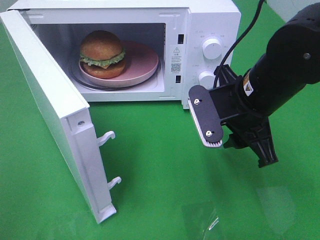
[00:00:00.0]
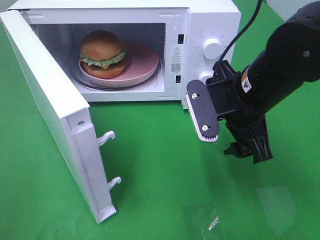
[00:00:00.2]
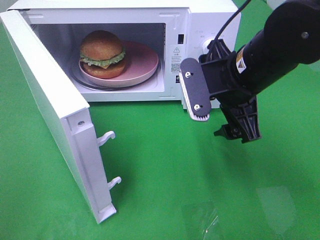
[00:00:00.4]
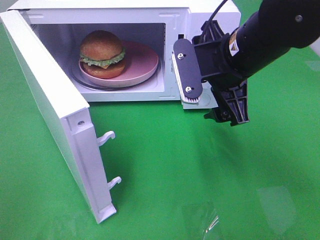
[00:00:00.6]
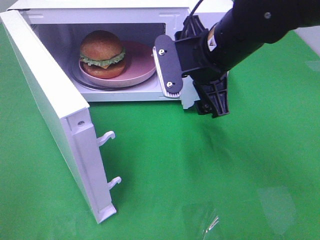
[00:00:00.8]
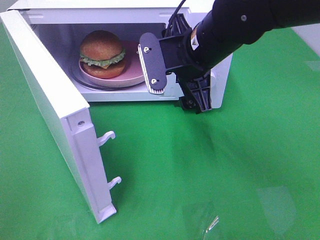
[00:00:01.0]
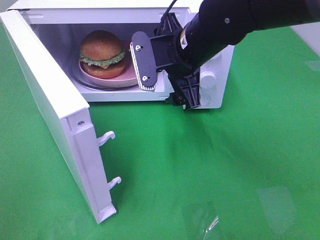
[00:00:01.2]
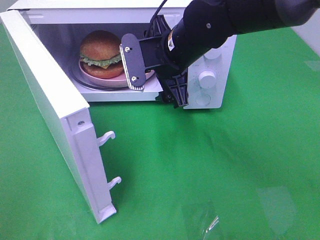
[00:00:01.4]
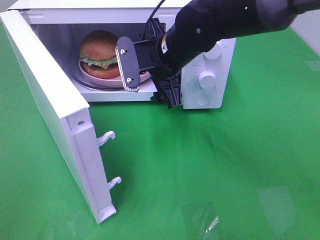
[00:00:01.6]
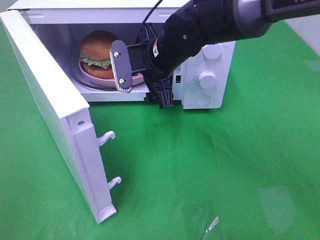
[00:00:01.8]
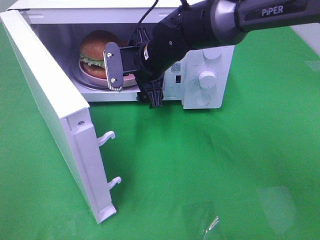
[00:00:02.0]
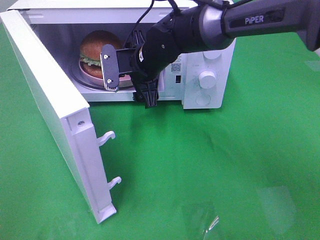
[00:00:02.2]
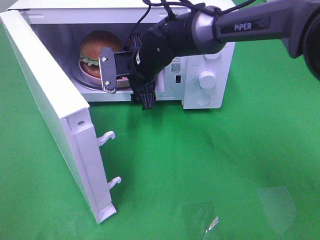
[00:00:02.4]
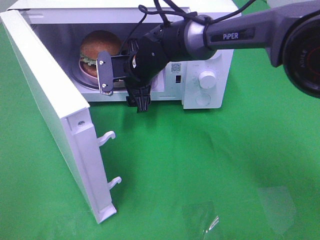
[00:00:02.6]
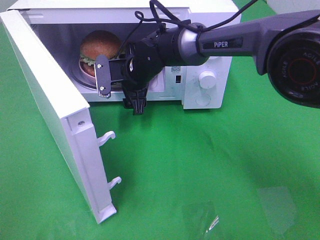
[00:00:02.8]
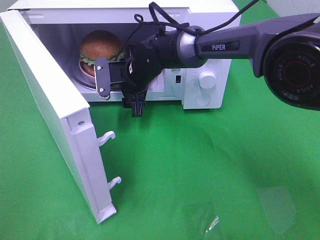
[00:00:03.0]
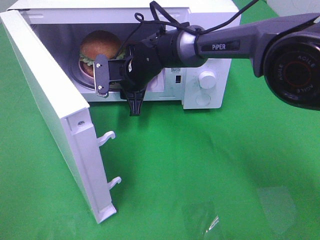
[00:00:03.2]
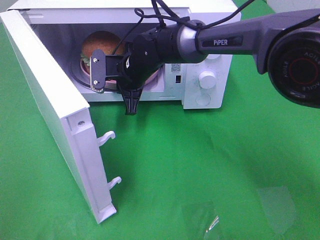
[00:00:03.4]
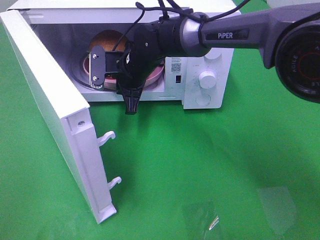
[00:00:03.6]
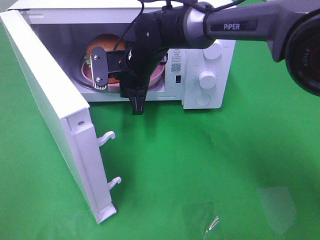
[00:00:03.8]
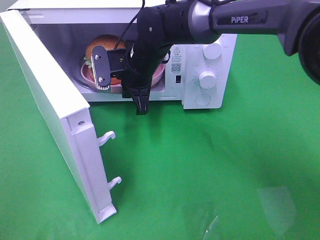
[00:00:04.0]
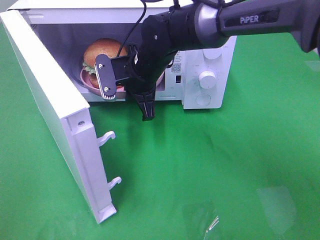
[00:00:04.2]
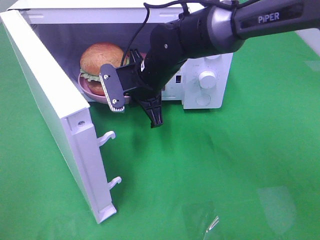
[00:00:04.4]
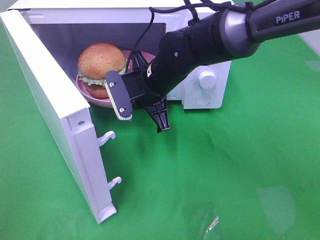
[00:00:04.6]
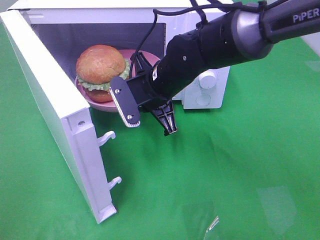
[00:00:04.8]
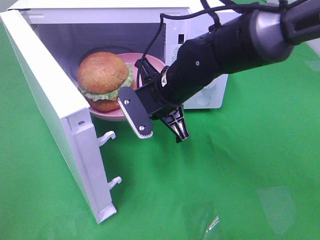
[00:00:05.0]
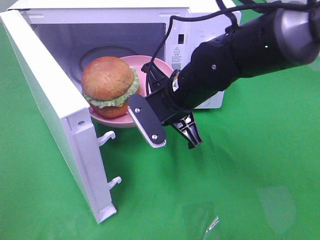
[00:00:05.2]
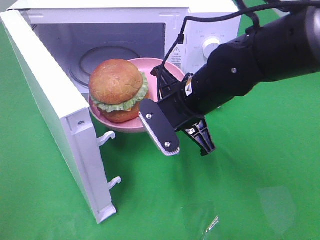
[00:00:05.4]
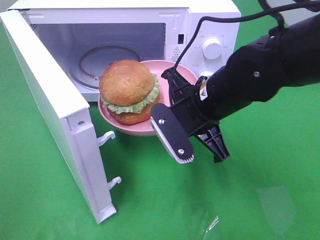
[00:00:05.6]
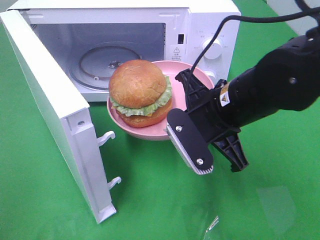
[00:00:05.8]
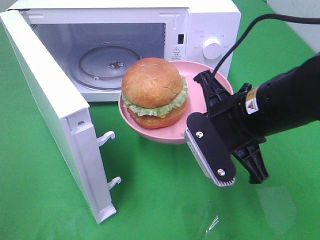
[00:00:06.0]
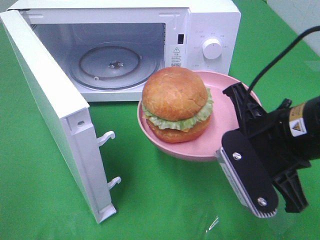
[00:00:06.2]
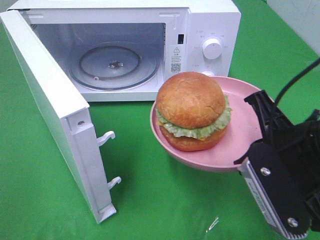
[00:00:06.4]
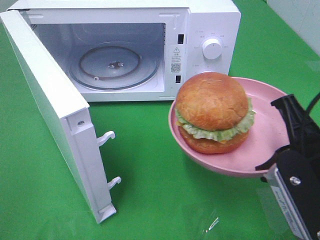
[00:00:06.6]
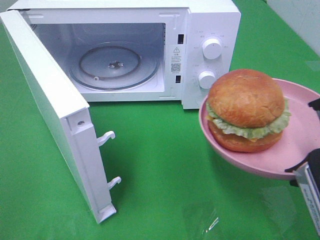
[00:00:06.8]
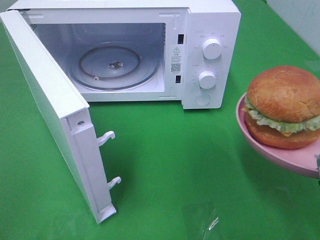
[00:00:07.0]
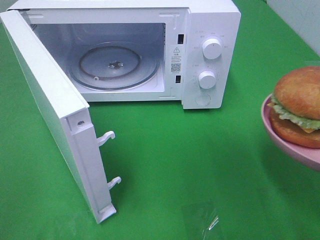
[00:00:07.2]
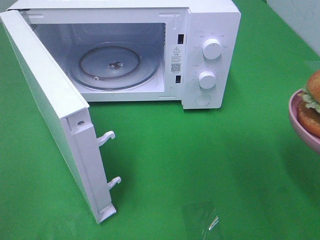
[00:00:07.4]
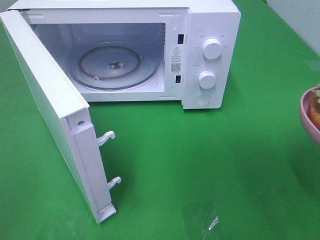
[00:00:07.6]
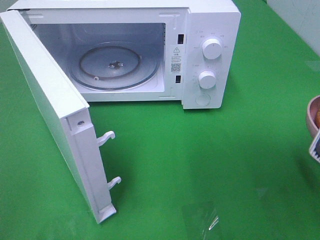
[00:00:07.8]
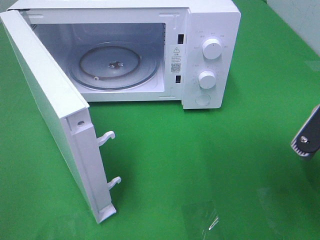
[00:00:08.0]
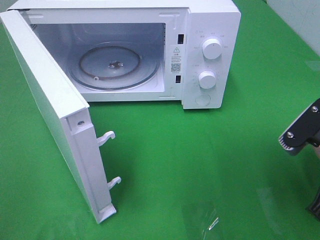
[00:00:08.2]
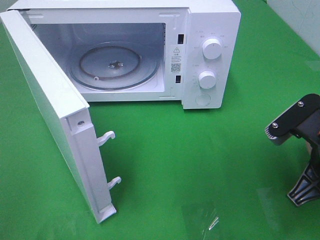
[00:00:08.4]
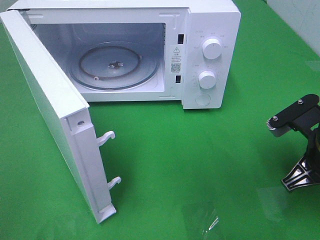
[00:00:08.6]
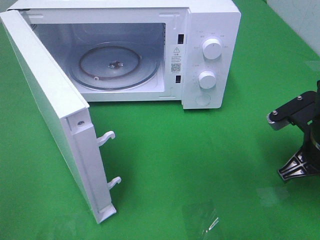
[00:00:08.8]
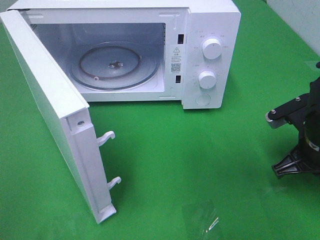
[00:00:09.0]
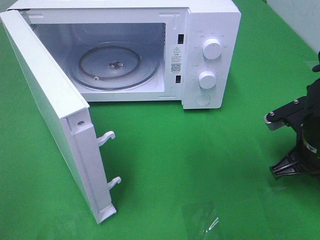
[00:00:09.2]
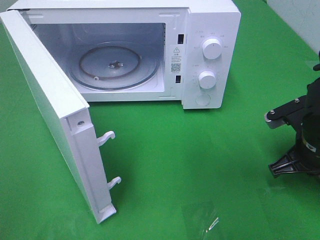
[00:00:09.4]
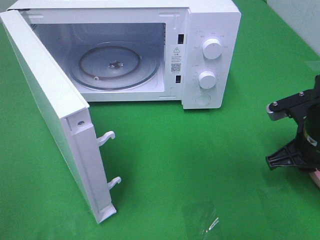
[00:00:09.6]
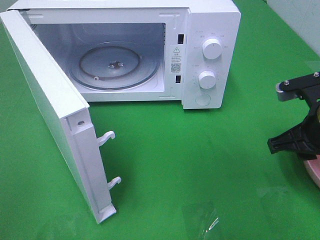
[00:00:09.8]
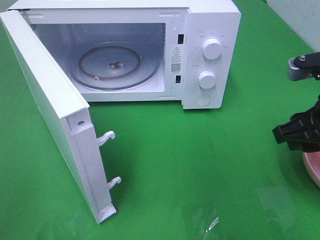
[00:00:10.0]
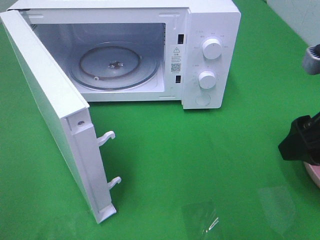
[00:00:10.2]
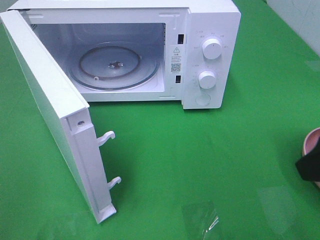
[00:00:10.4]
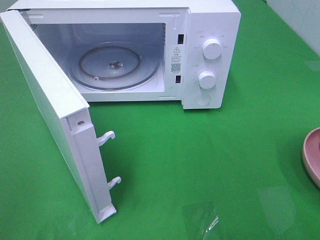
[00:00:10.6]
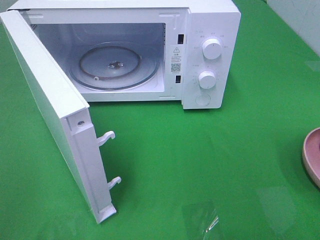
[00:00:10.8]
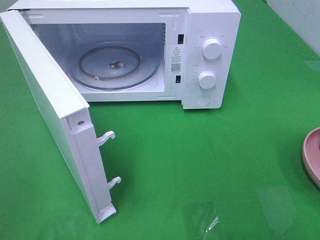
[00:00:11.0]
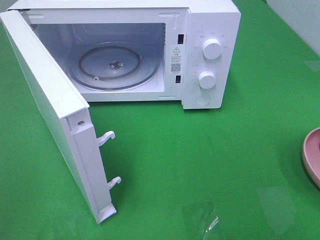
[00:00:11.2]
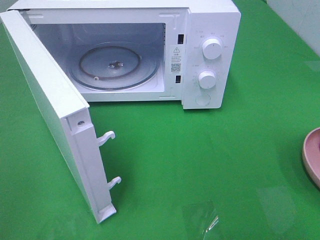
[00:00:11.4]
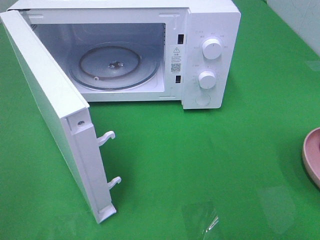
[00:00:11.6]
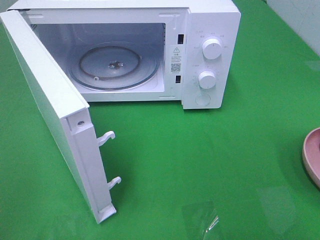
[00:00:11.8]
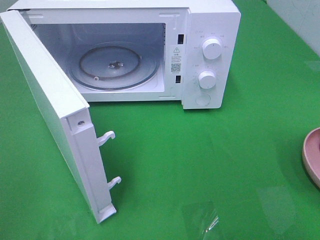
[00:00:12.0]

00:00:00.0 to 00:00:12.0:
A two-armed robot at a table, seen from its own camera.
Task of the whole recording: Heat the burger.
Step, 00:00:00.0 to 00:00:03.4: Right hand: grab the plate with the hamburger.
Step, 00:00:03.6 to 00:00:09.4: Right hand: place the plate on the table.
00:00:00.0 to 00:00:01.6: The right gripper moves to the left and forward, approximately 15 cm, and opens its fingers.
00:00:01.6 to 00:00:03.0: The right gripper is displaced downward, forward and to the left by about 10 cm.
00:00:03.0 to 00:00:04.4: The right gripper travels backward by roughly 5 cm, and closes up.
00:00:04.4 to 00:00:06.0: The right gripper shifts about 20 cm backward and to the right.
00:00:06.0 to 00:00:07.6: The right gripper shifts roughly 15 cm to the right and backward.
00:00:07.6 to 00:00:09.0: The right gripper travels forward and downward by about 15 cm.
00:00:09.0 to 00:00:10.4: The right gripper is displaced upward and backward by roughly 20 cm, and opens.
00:00:10.4 to 00:00:12.0: The right gripper travels backward by approximately 15 cm.

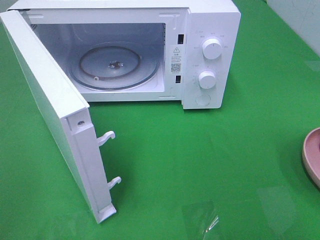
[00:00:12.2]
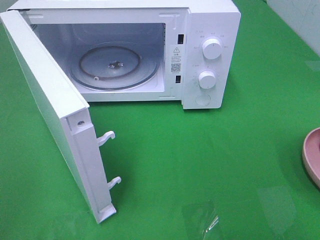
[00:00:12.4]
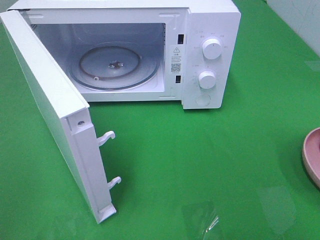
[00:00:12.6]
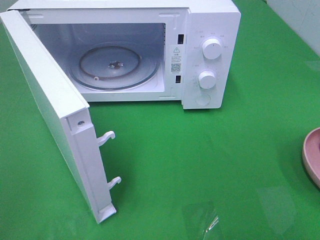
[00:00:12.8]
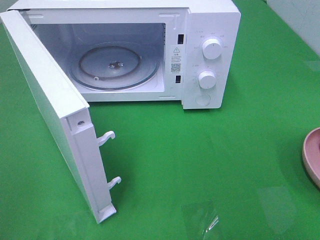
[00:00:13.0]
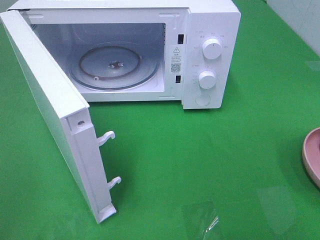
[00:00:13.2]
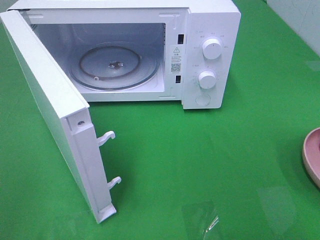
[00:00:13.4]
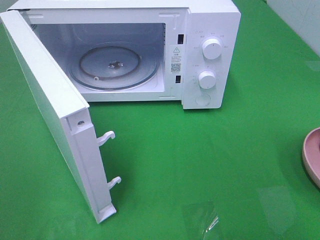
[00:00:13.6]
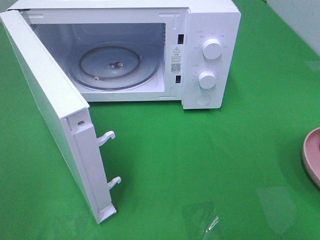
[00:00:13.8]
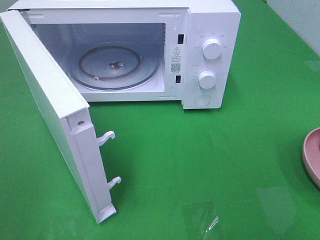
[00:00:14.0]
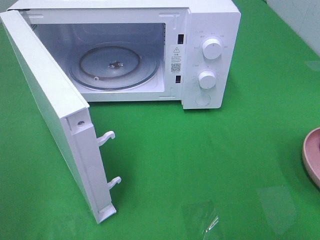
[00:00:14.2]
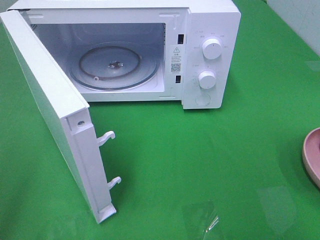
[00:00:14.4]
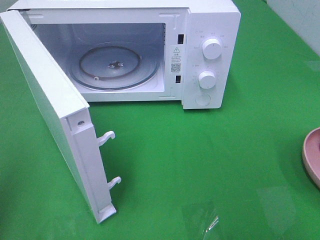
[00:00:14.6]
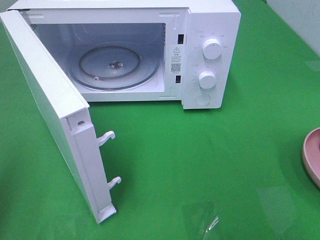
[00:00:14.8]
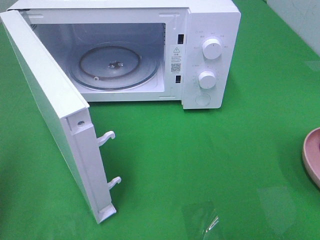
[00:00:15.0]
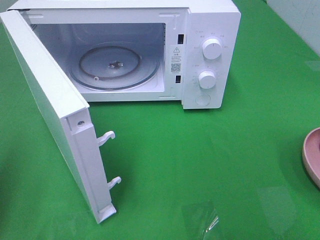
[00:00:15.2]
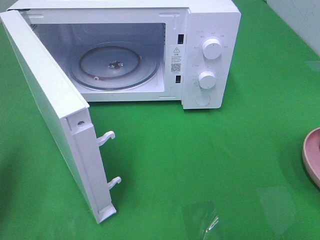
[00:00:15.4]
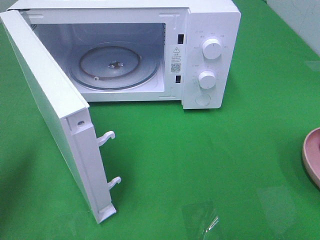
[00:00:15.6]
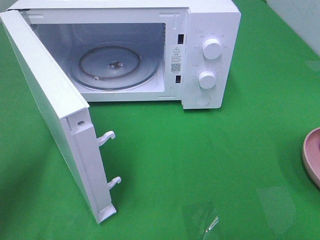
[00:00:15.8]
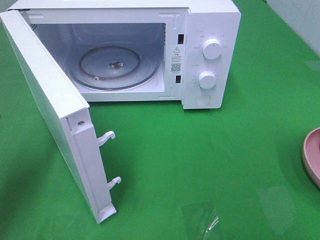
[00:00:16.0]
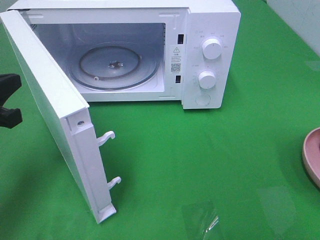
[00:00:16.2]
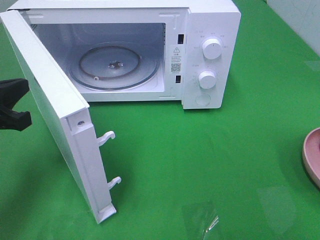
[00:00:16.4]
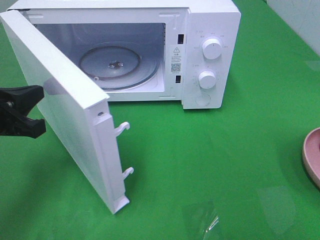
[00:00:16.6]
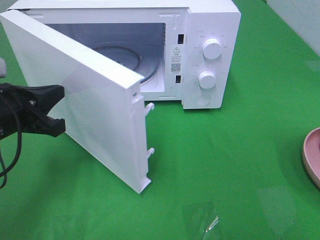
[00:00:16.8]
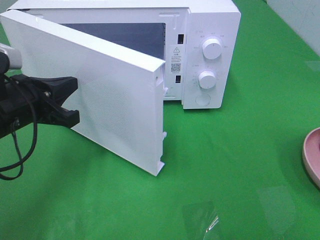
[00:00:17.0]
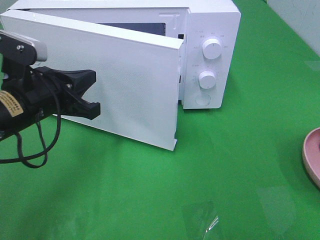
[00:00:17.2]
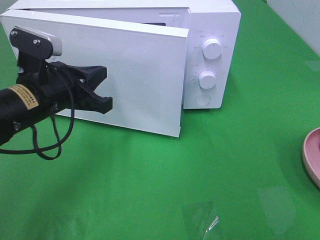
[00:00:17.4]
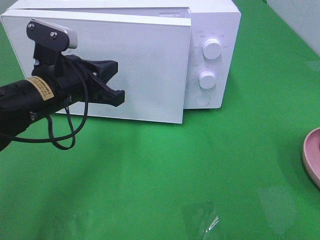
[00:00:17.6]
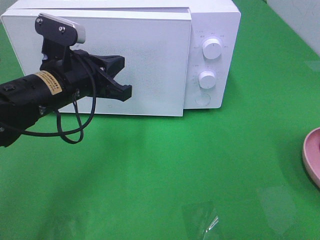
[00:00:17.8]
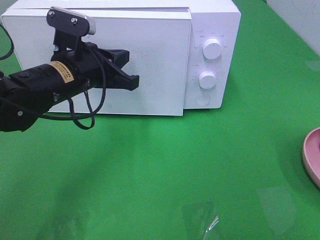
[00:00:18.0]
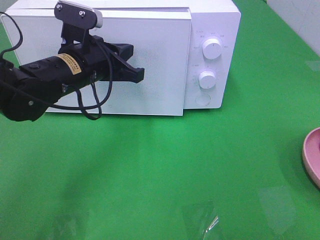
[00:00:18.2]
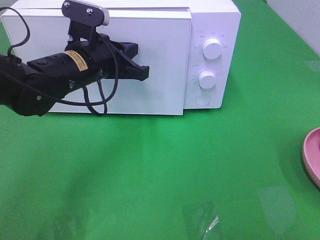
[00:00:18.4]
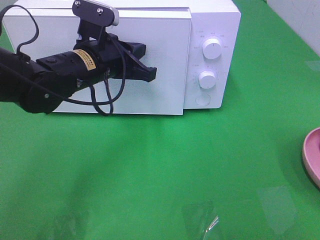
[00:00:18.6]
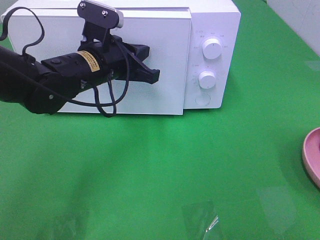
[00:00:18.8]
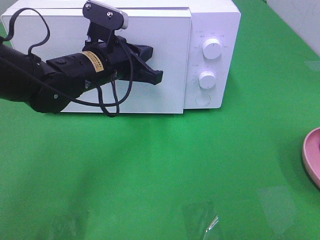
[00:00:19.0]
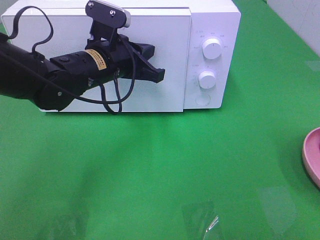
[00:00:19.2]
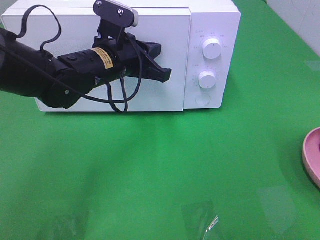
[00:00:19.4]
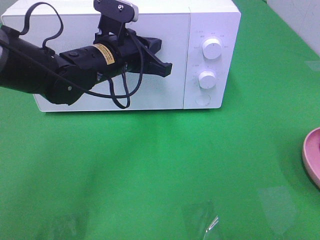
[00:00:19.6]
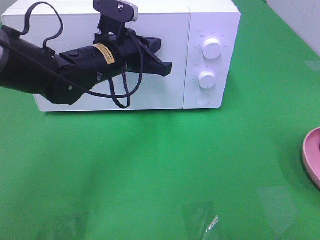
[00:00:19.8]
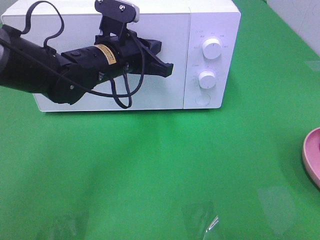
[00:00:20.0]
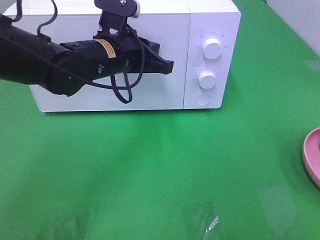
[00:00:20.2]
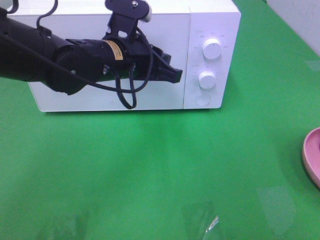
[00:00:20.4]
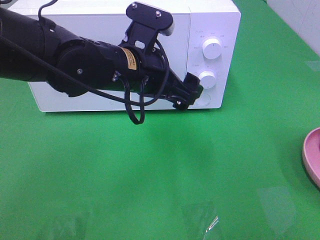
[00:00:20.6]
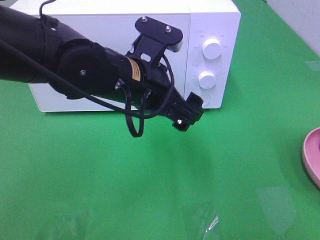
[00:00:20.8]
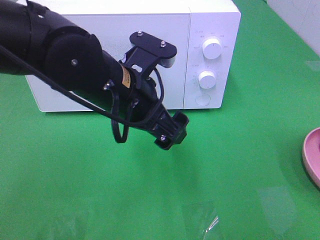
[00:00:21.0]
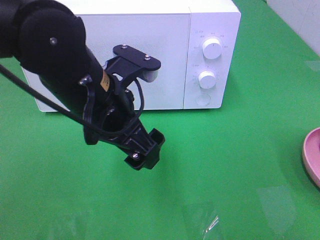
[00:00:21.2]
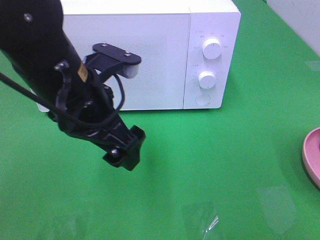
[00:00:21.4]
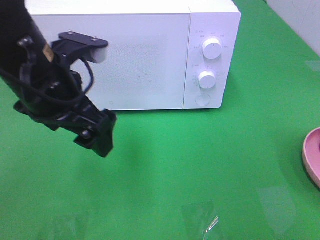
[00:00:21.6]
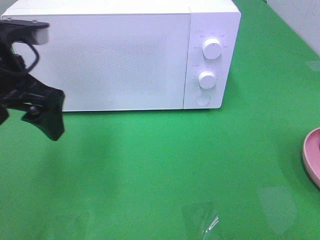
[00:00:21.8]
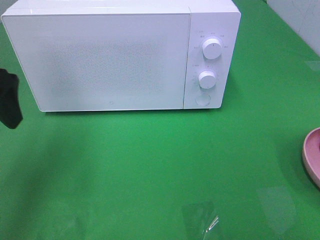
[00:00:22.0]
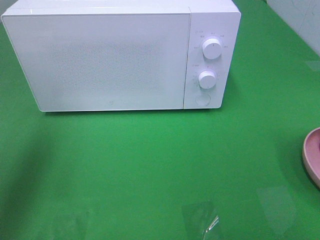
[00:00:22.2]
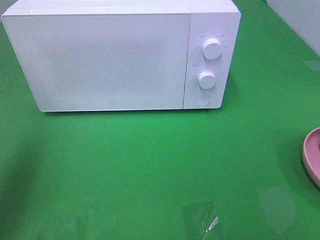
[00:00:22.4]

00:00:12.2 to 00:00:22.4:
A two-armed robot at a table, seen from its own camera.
Task of the whole recording: Heat the burger.
Step, 00:00:12.2 to 00:00:20.2: Left hand: close the microwave door.
00:00:15.2 to 00:00:16.6: The left gripper goes roughly 15 cm to the right, forward and downward.
00:00:16.6 to 00:00:18.0: The left gripper travels to the right and forward by about 15 cm.
00:00:18.0 to 00:00:19.4: The left gripper moves some 5 cm.
00:00:19.4 to 00:00:21.0: The left gripper travels backward by about 10 cm, and opens its fingers.
00:00:21.0 to 00:00:22.4: The left gripper goes roughly 30 cm to the left and upward.
